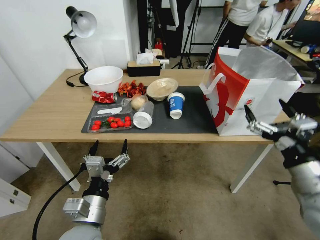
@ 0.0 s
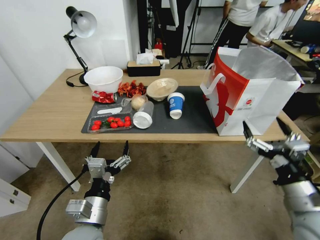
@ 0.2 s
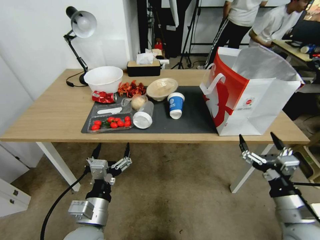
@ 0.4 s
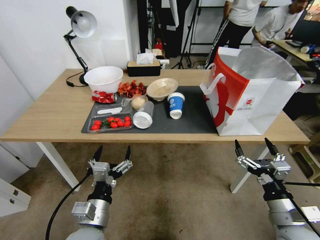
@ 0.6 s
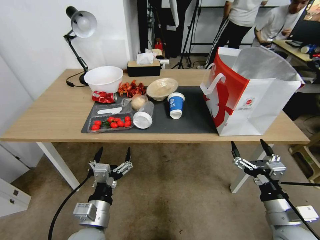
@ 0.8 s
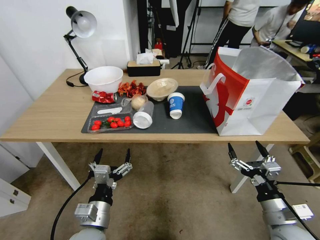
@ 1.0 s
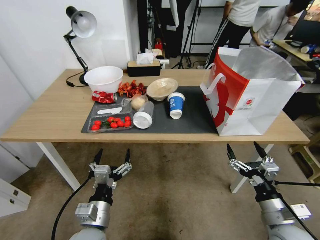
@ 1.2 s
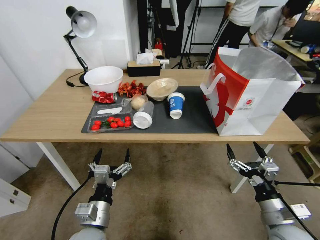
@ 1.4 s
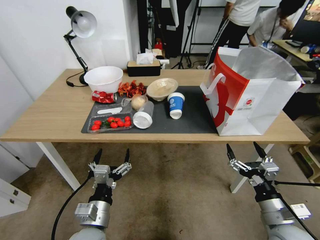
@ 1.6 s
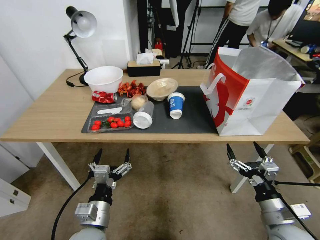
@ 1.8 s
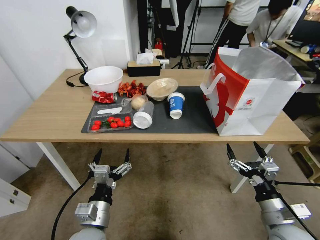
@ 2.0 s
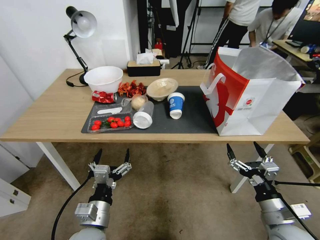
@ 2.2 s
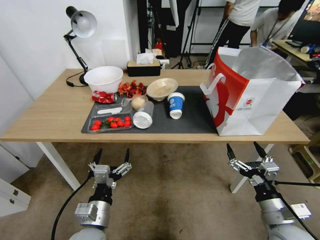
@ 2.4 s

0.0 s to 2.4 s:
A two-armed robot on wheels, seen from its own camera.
Task of the whole recording: Pick up the food delivery bag from the floor and place it on the table.
0.0 to 1.2 s: The right gripper heads downward, covering roughly 15 cm.
1.2 to 2.4 s: Both grippers stay about where they are.
